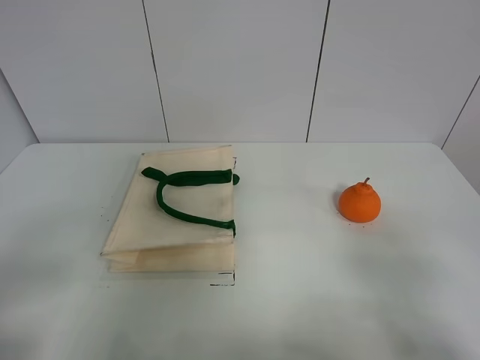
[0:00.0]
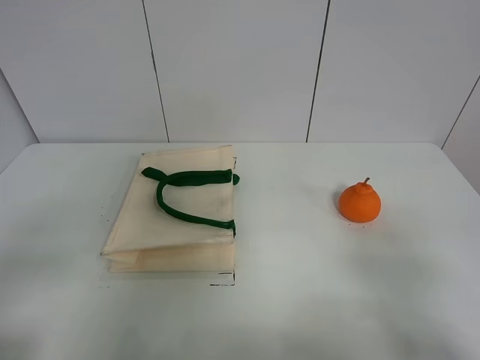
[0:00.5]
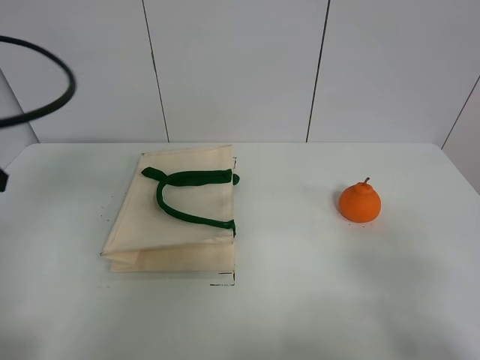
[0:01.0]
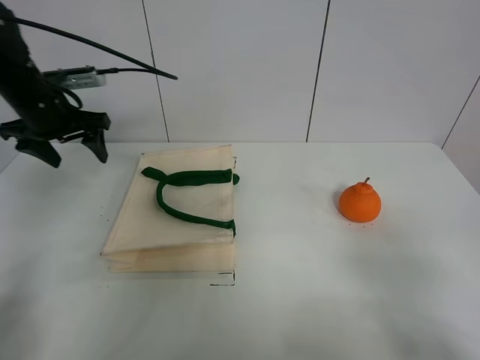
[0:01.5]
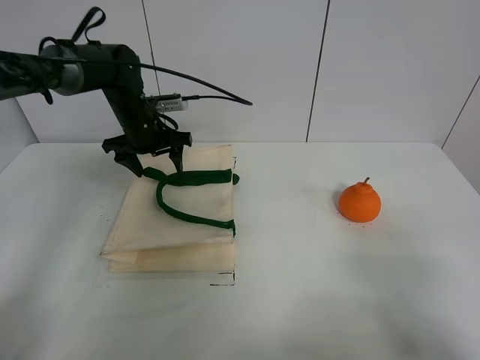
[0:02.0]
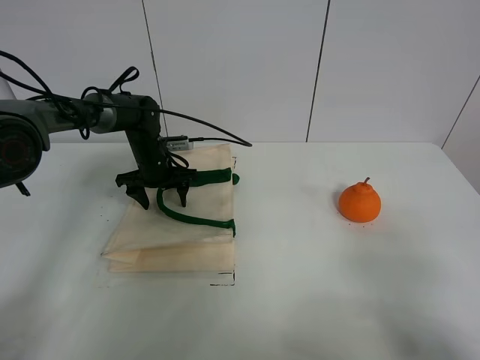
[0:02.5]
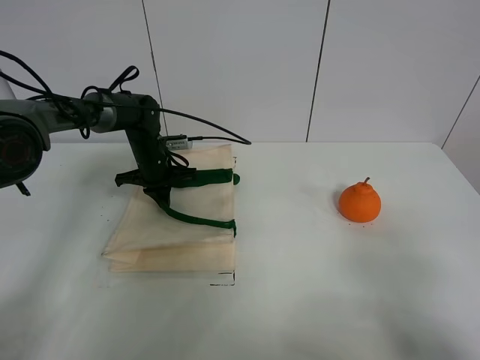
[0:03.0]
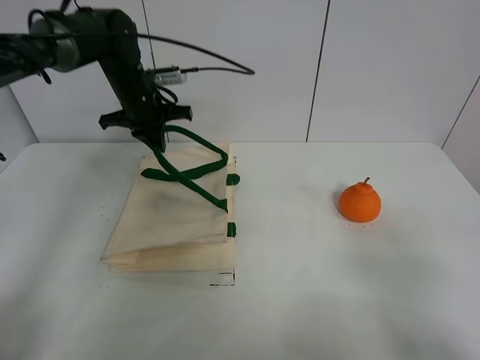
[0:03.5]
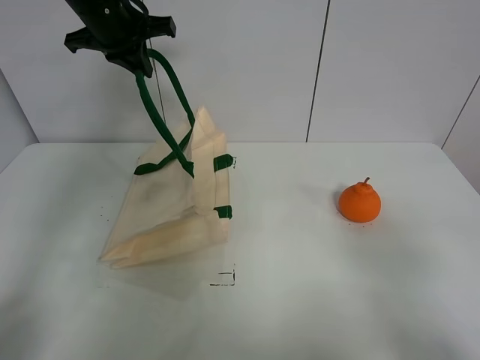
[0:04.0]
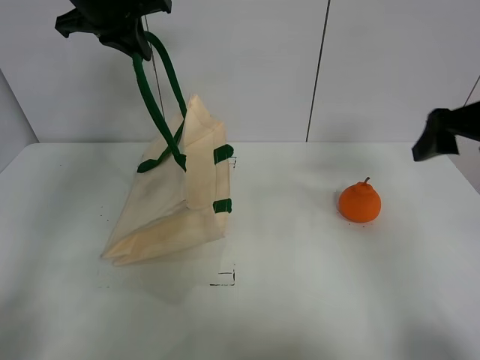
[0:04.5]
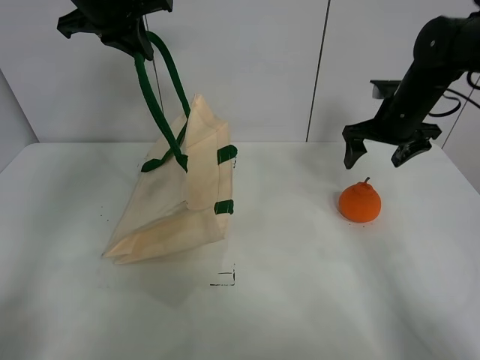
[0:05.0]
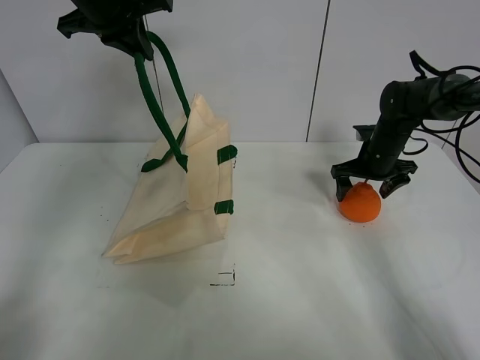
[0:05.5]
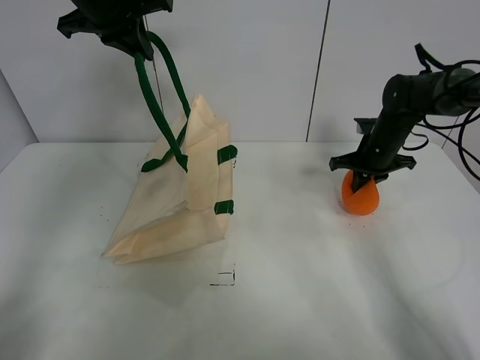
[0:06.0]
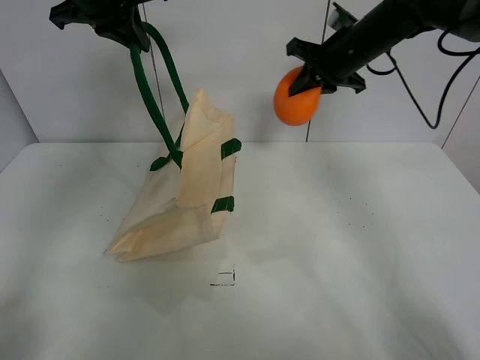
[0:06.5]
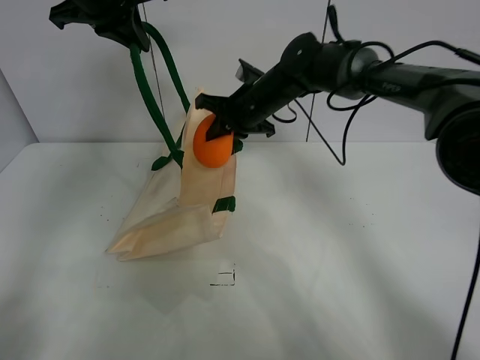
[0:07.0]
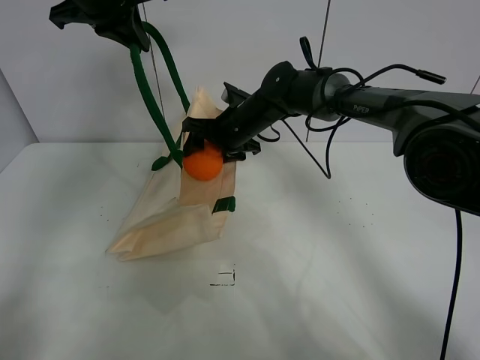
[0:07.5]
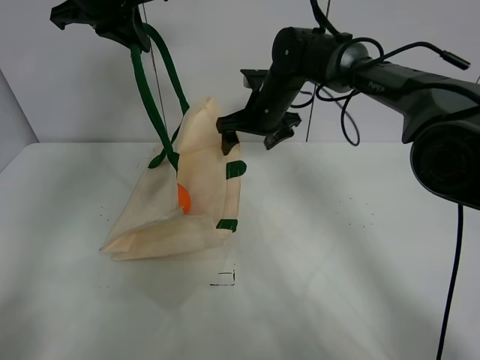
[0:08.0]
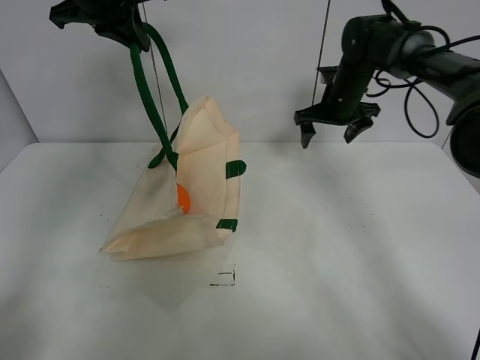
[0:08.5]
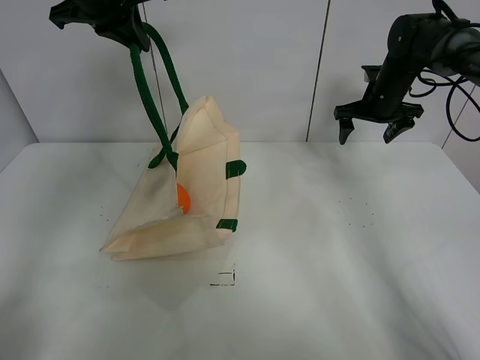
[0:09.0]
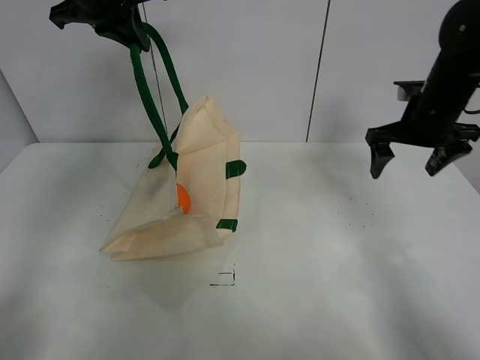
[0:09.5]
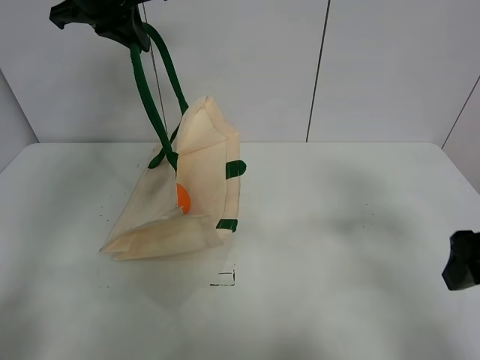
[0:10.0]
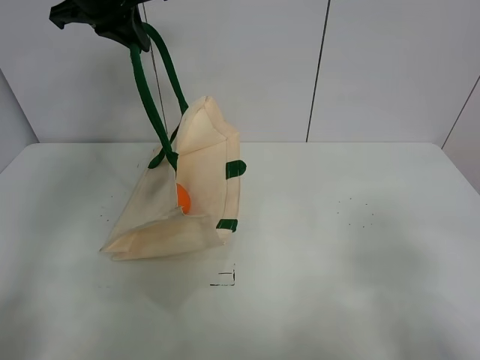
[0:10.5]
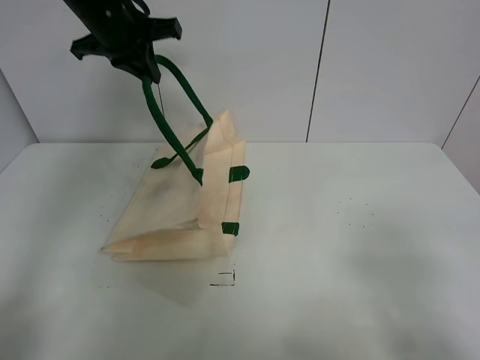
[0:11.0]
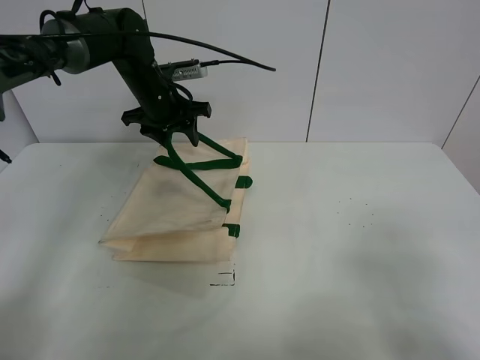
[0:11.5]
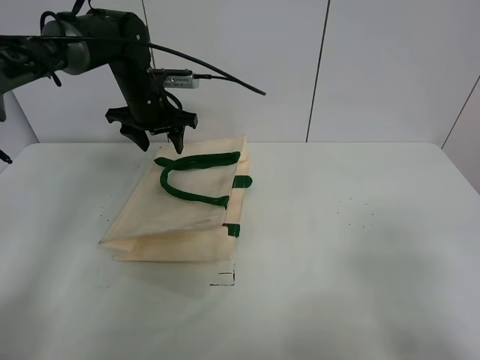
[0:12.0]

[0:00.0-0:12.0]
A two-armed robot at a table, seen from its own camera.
Task of the whole recording: open the white linen bag and put the orange in the bag.
Step, 0:00.0 to 0:03.5: Lift the handbag with left gripper.
Step, 0:04.0 to 0:05.5: Grasp the orange with right gripper.
Step, 0:06.0 to 0:07.5: Place the orange in the handbag with right gripper.
Step, 0:08.0 to 0:12.0: Put down the handbag with left gripper.
0:00.0 to 0:02.0: The left gripper is displaced forward by about 50 cm.
0:02.0 to 0:04.0: The left gripper moves upward, roughly 20 cm, and closes.
0:04.0 to 0:06.0: The right gripper travels forward by some 40 cm, and closes its fingers.
0:06.0 to 0:08.0: The right gripper travels to the left by approximately 20 cm, and opens.
0:08.0 to 0:10.0: The right gripper shifts about 40 cm backward and to the right.
0:10.0 to 0:12.0: The left gripper heads downward, covering roughly 20 cm, and opens, while the right gripper travels backward by roughly 15 cm.

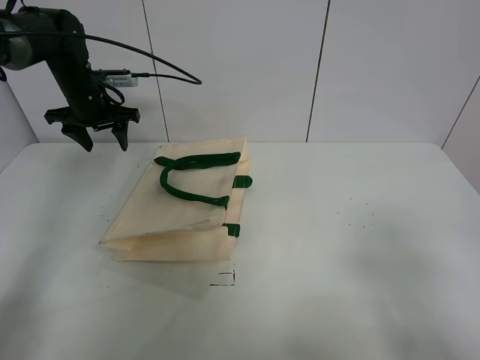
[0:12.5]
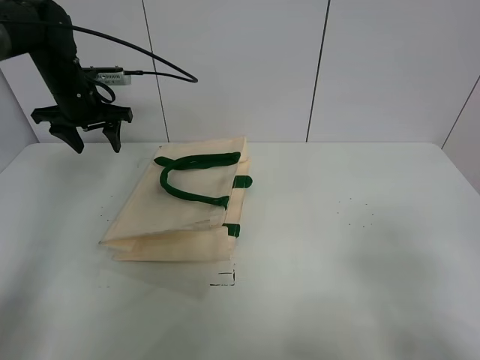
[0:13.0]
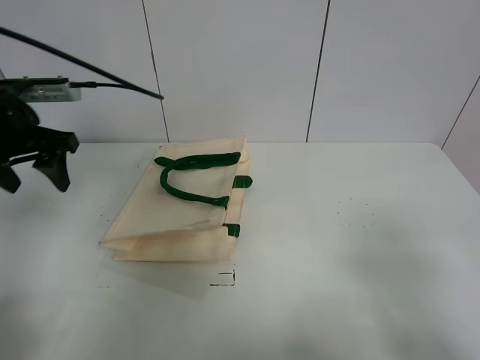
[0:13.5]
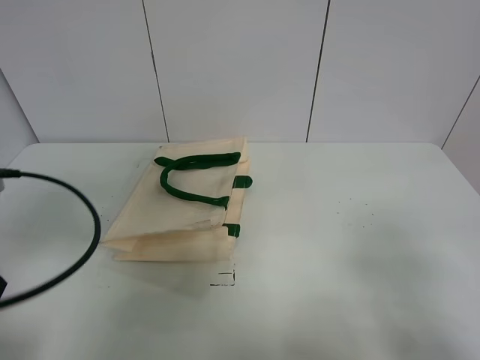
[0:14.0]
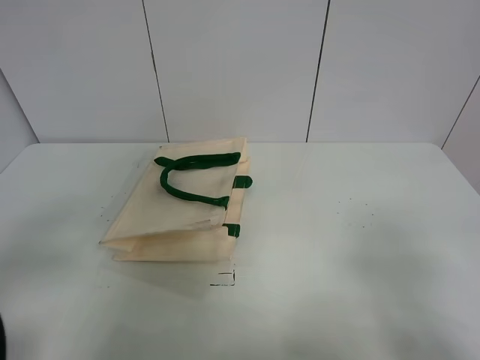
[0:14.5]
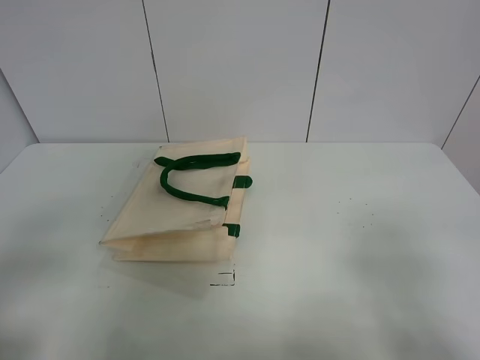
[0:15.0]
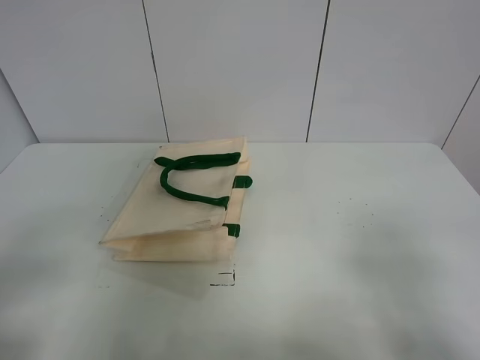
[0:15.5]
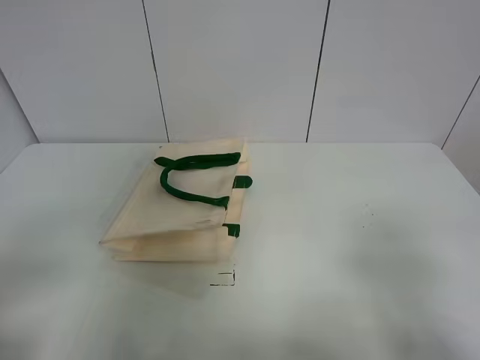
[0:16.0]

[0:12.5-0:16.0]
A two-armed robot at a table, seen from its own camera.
Task of the whole recording: open the white linen bag and put the orange in the bag.
0:12.5 to 0:14.5: The left gripper moves backward, roughly 40 cm.
